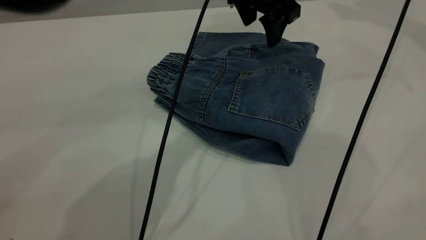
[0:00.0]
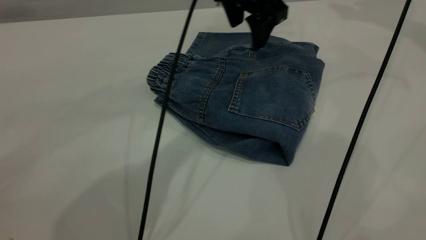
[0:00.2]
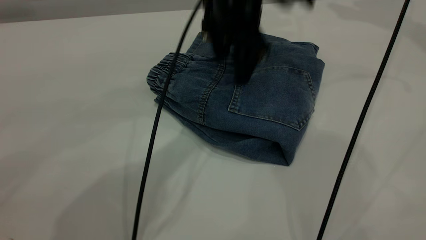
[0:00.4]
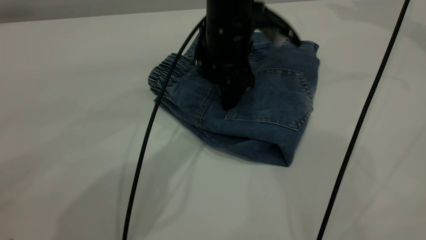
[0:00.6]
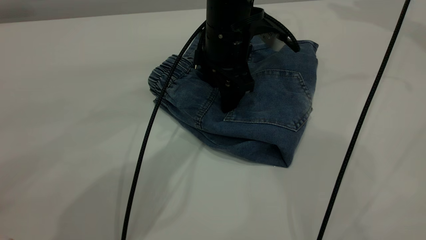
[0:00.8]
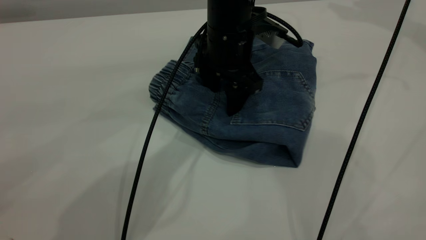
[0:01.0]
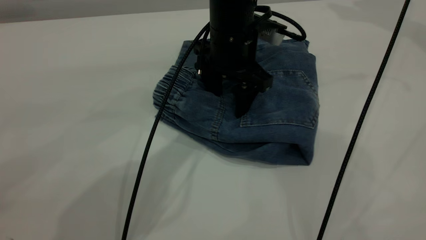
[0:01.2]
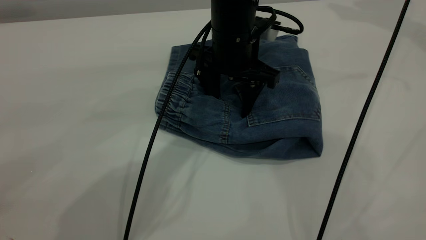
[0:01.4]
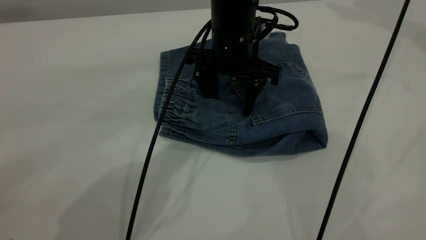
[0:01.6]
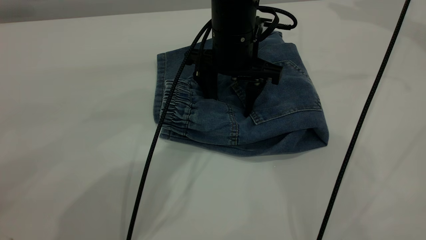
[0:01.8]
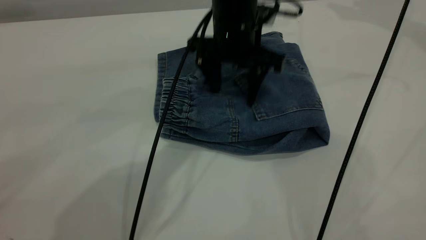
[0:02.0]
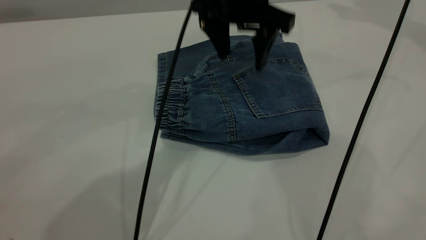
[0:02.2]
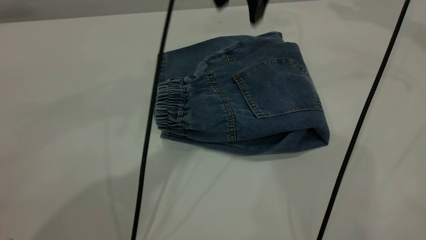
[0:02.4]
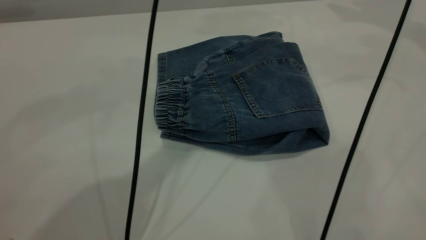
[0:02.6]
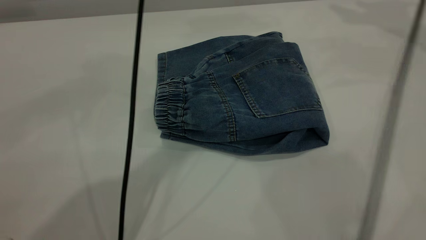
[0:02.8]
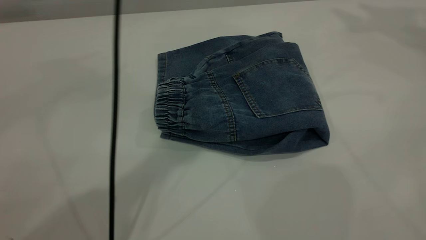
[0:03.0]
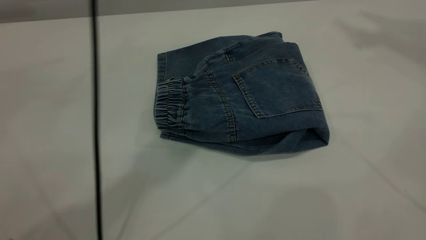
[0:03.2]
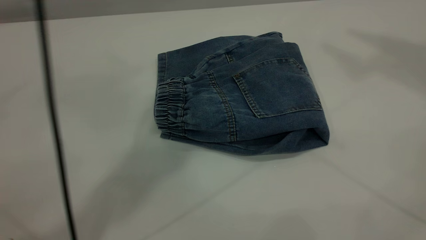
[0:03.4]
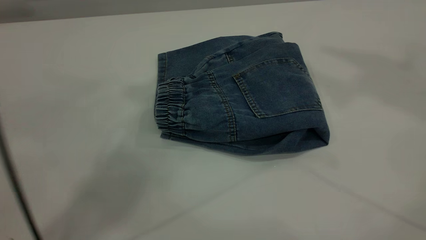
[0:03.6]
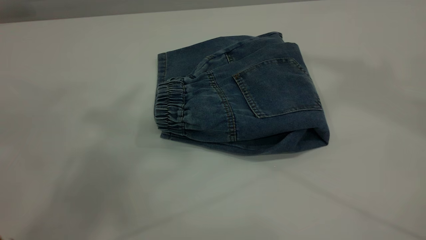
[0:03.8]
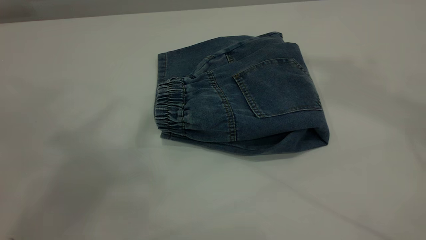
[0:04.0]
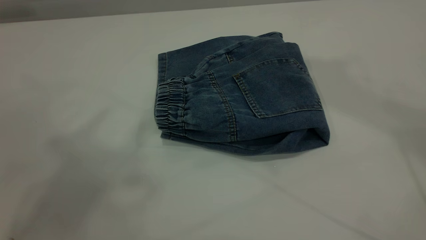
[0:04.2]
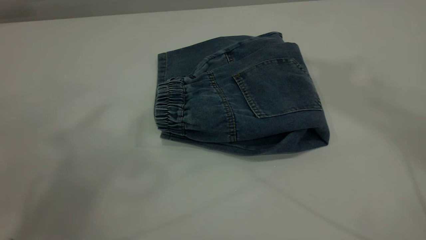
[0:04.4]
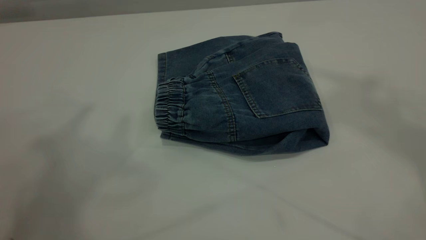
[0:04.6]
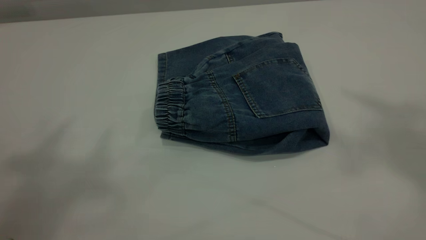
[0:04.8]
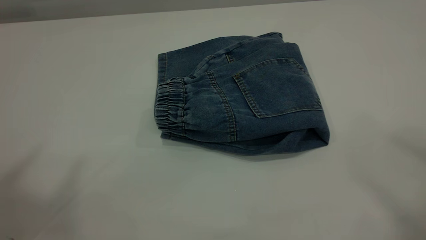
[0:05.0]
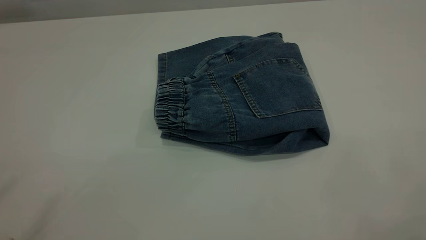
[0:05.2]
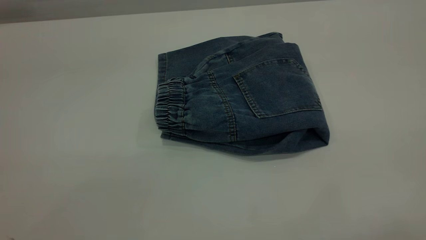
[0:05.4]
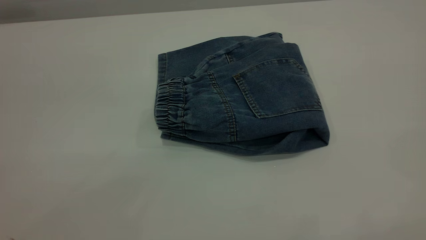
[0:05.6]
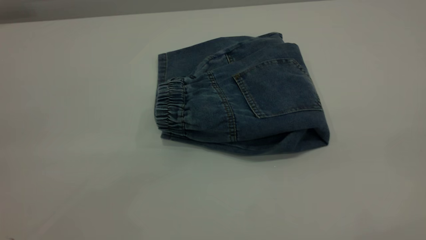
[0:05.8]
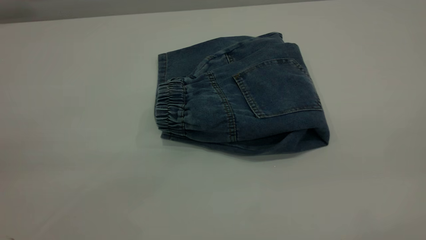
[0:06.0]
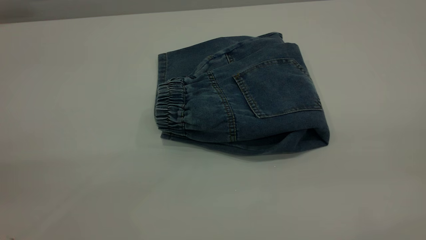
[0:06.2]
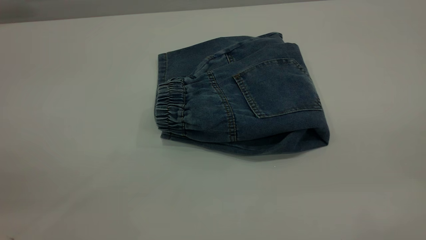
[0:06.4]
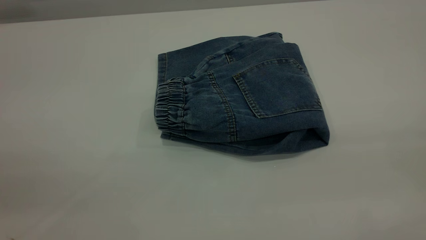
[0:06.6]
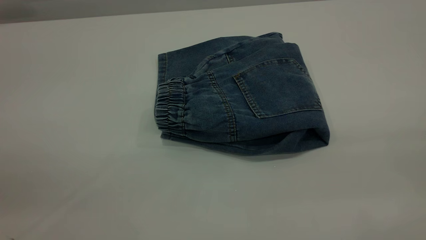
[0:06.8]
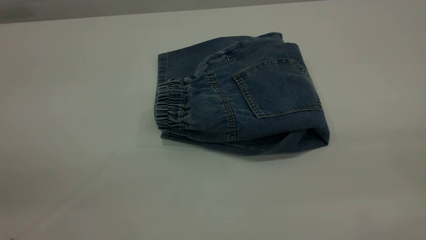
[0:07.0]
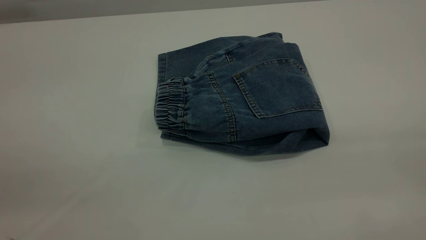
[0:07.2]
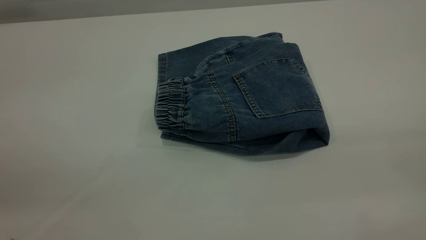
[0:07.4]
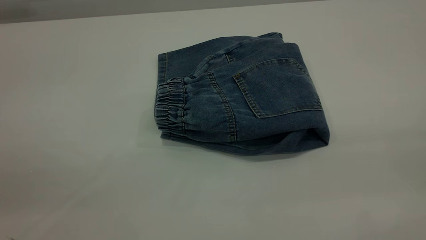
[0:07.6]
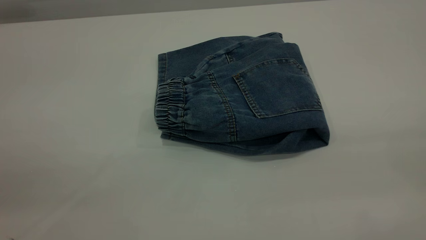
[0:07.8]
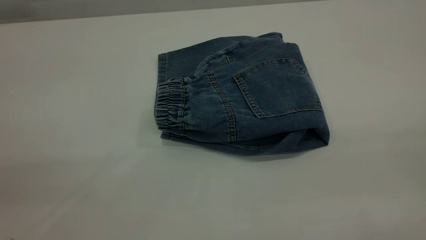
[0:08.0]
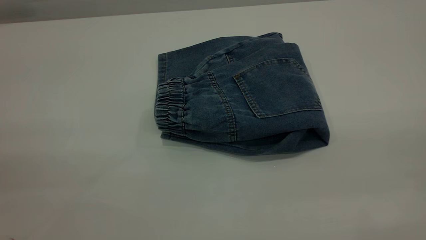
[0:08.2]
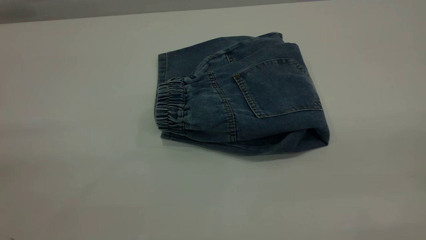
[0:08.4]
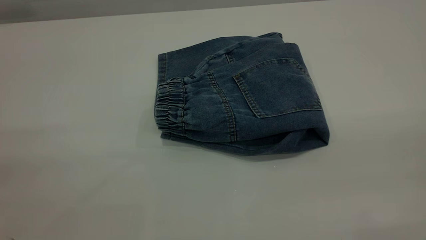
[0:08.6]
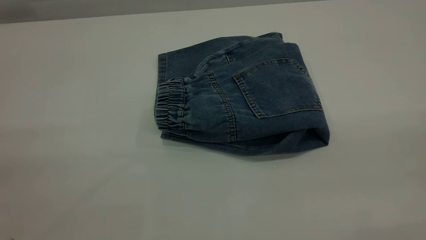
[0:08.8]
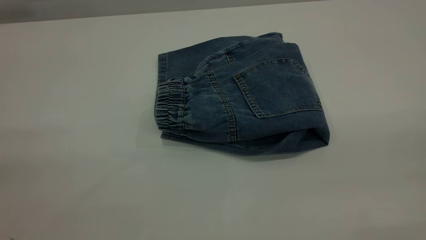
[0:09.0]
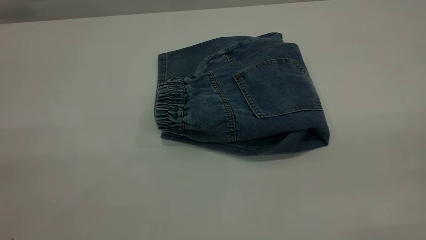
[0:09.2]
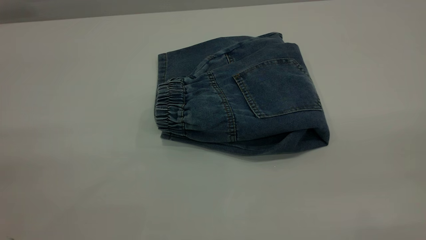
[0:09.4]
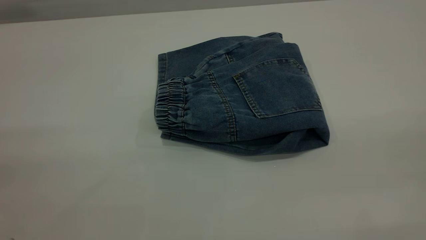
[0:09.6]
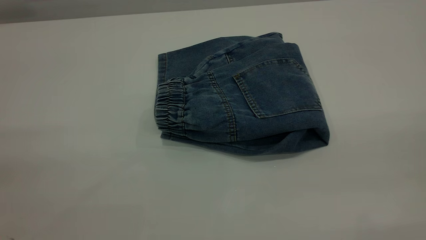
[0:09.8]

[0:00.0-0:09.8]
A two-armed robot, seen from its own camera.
0:00.0 to 0:01.4: The left gripper shifts some 10 cm downward.
0:01.4 to 0:02.8: The left gripper travels upward by some 25 cm. Meanwhile the right gripper is displaced upward by some 5 cm.
0:02.8 to 0:04.2: The left gripper heads upward, backward and to the left, covering approximately 40 cm, while the right gripper goes about 30 cm backward, upward and to the left.
0:04.2 to 0:05.6: The left gripper shifts about 25 cm backward, to the left and downward.
0:08.4 to 0:09.8: The two grippers keep their place.

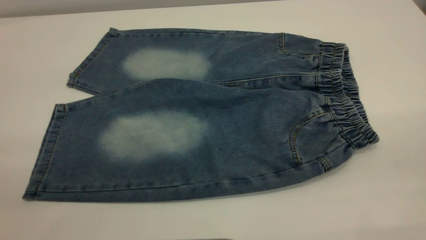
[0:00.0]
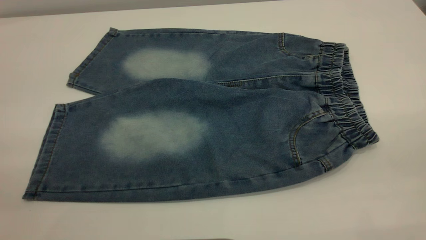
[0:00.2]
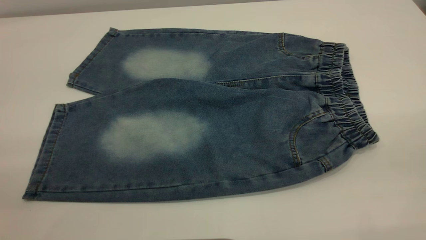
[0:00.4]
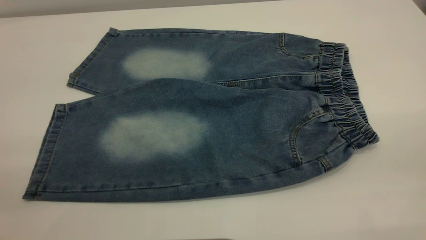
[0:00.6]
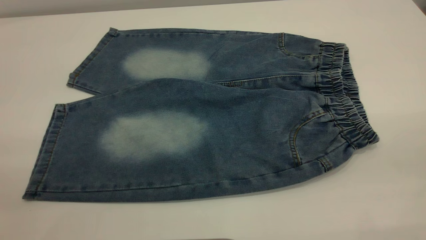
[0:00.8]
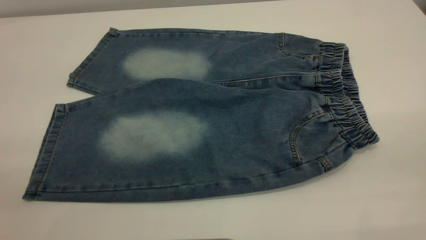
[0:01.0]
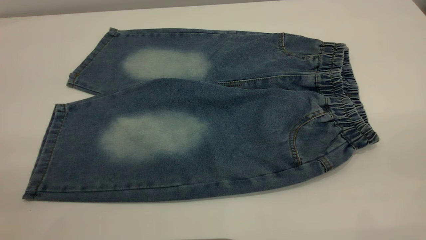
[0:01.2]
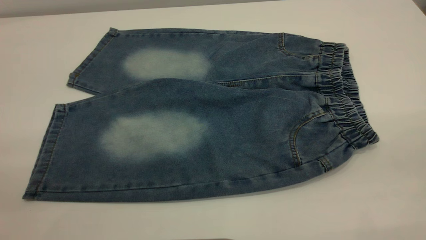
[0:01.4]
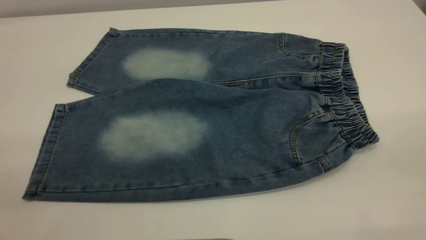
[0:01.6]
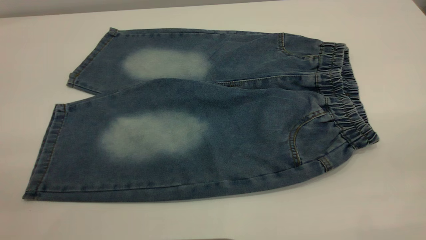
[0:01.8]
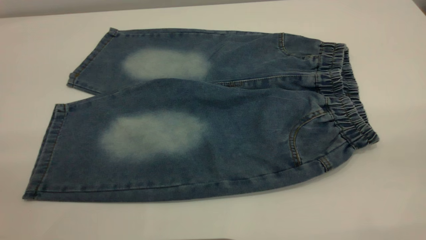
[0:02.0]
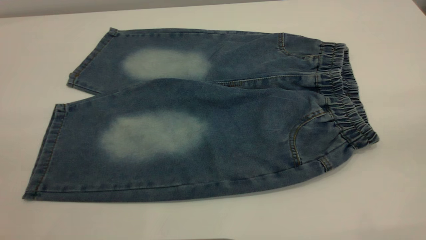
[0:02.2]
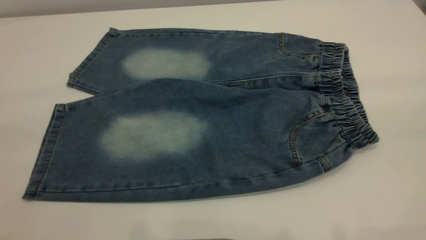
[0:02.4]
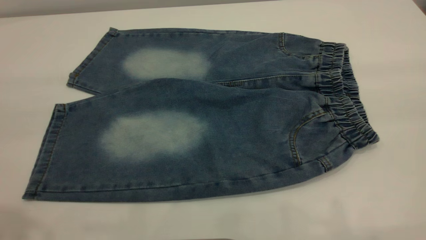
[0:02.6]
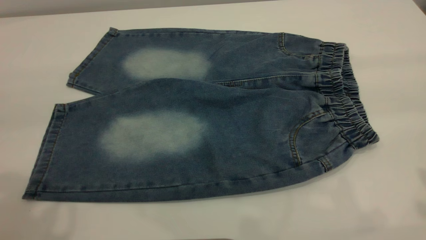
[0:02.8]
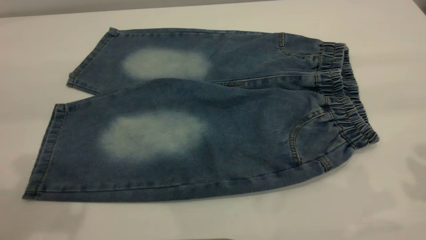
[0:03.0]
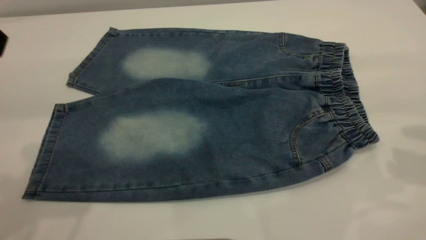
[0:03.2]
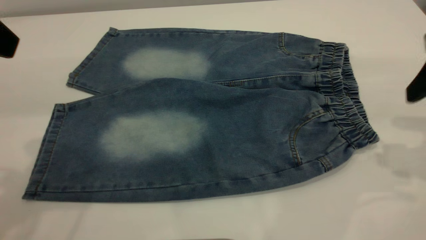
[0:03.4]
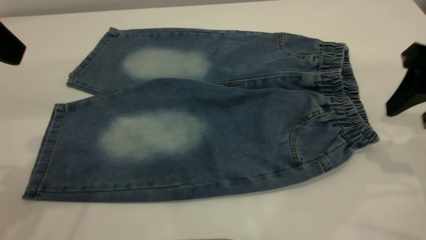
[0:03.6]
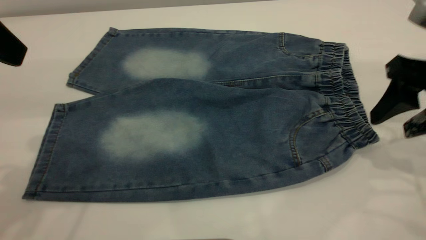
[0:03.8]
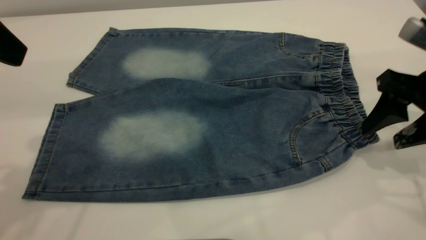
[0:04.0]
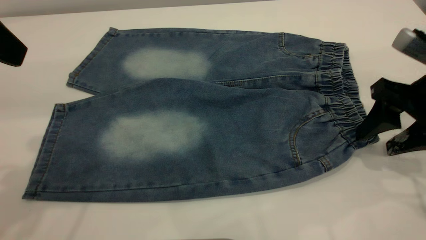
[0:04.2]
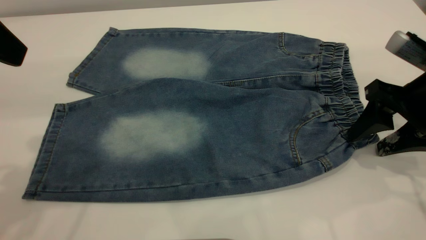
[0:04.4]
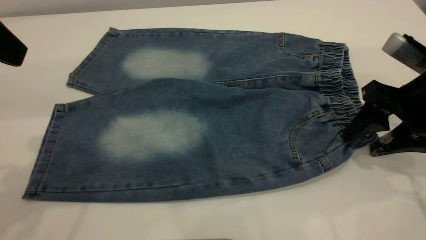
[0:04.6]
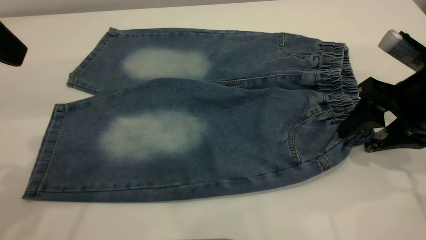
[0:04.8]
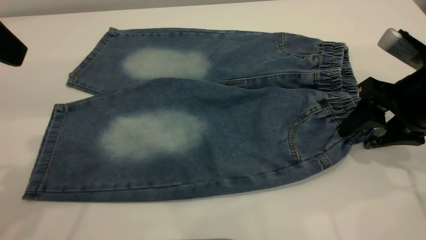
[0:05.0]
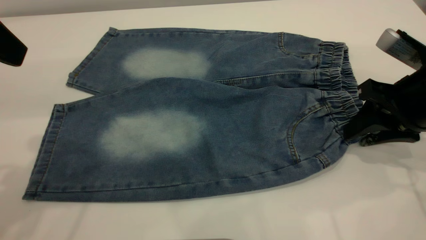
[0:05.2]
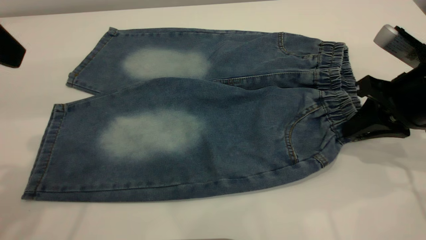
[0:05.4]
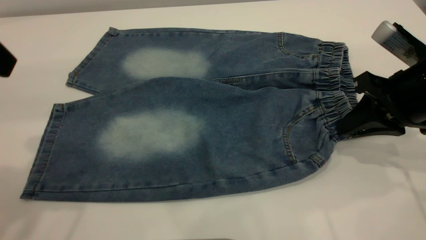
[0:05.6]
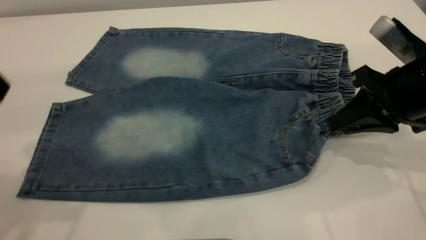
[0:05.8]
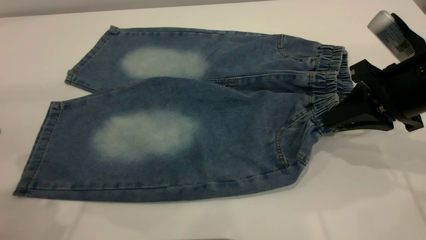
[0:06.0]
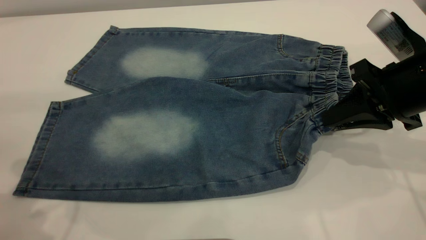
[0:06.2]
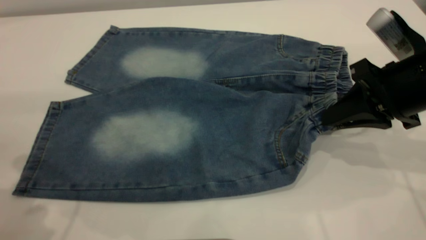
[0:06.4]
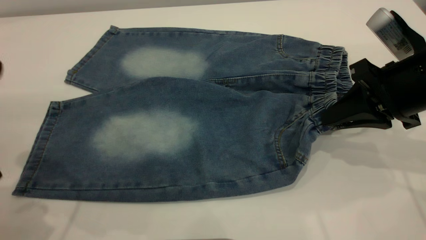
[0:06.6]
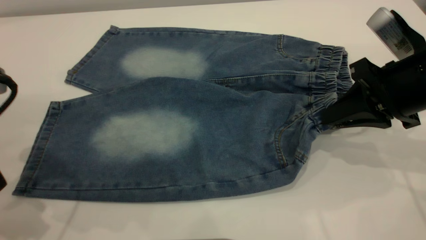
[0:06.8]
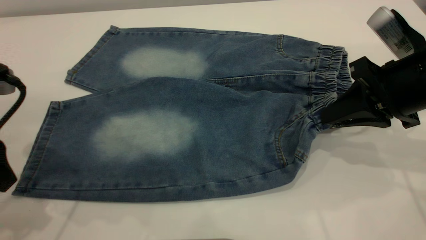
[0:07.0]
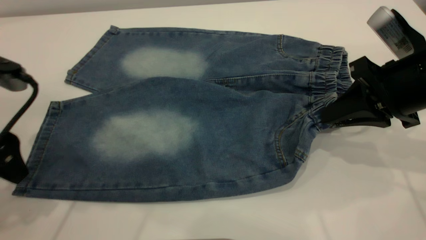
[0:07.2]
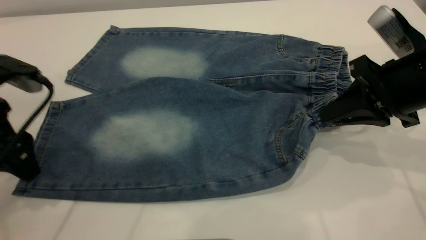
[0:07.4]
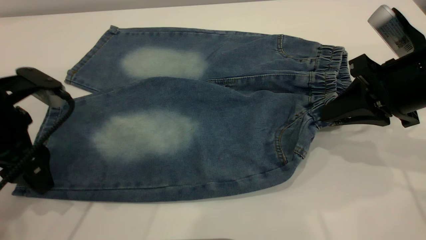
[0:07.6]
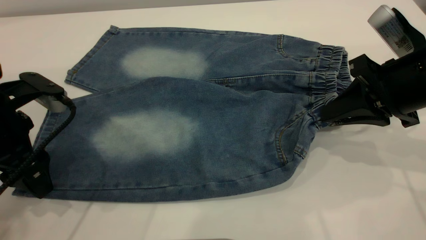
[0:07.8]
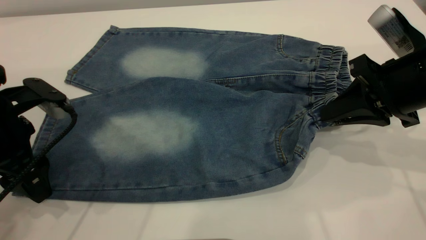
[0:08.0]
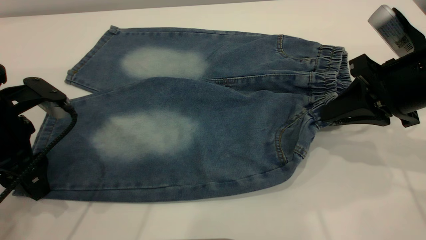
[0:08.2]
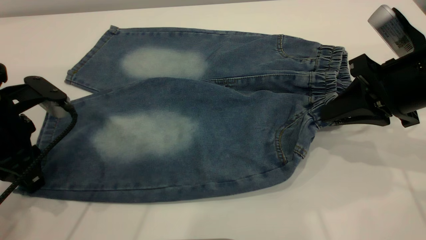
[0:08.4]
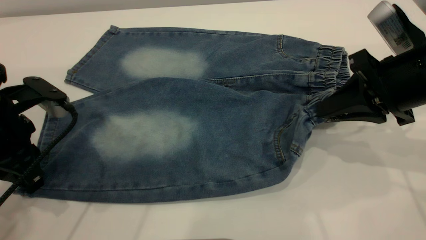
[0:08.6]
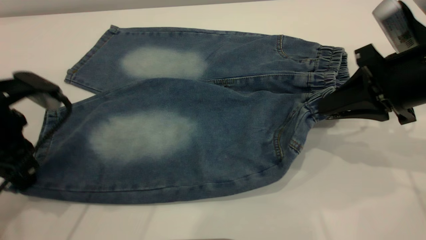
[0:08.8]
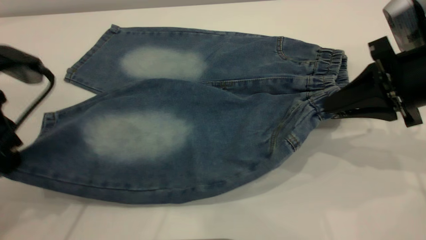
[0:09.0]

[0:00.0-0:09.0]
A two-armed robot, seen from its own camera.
0:00.0 to 0:01.6: Both grippers stay put.
0:03.0 to 0:04.4: The right gripper moves downward and forward, roughly 15 cm.
0:04.4 to 0:06.0: The right gripper closes its fingers. The left gripper ends up about 5 cm from where it was.
0:06.0 to 0:07.6: The left gripper shifts roughly 15 cm downward and forward.
0:07.6 to 0:09.0: The left gripper closes up.
